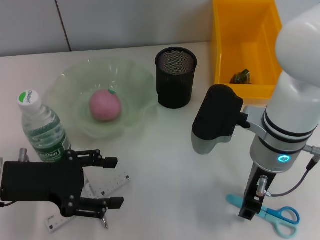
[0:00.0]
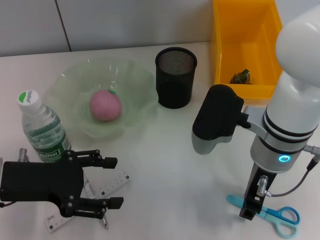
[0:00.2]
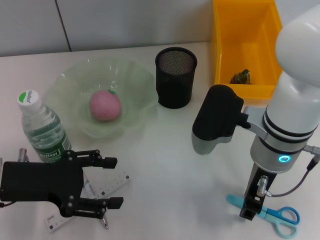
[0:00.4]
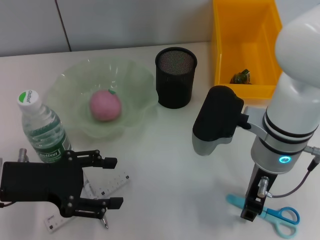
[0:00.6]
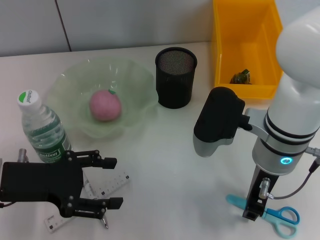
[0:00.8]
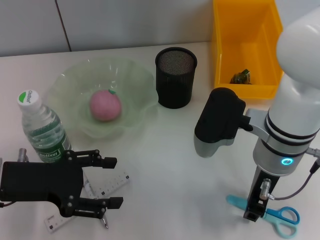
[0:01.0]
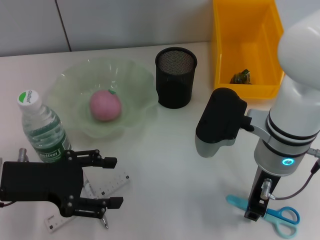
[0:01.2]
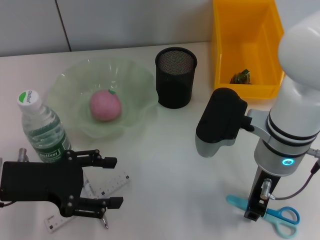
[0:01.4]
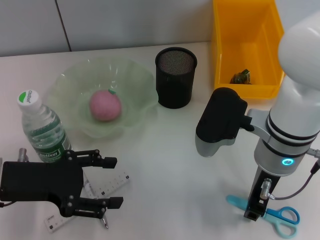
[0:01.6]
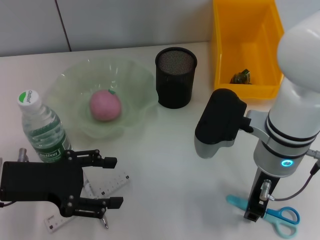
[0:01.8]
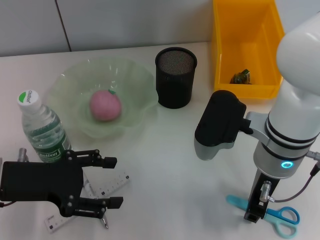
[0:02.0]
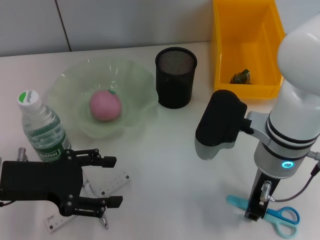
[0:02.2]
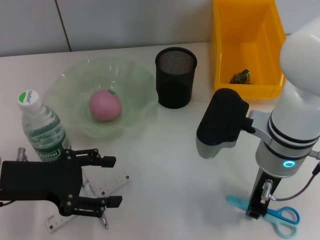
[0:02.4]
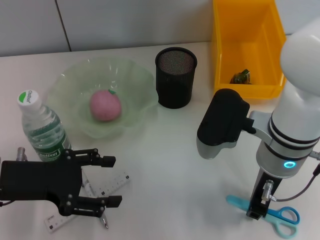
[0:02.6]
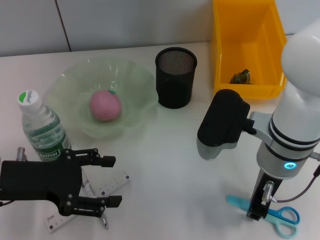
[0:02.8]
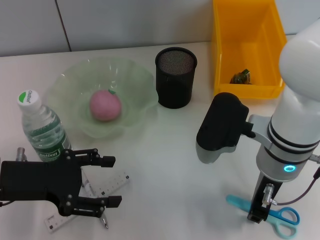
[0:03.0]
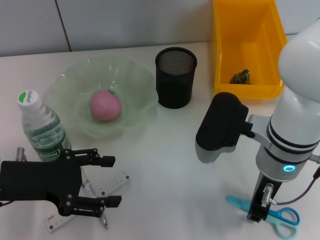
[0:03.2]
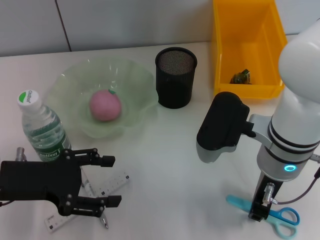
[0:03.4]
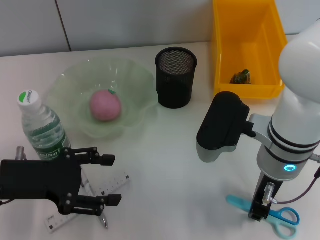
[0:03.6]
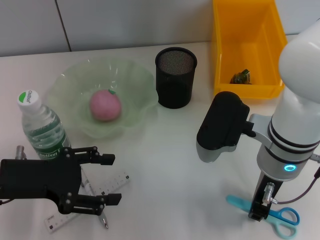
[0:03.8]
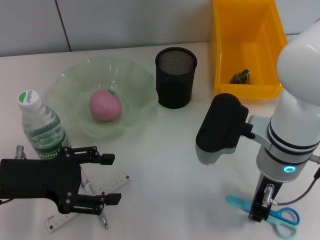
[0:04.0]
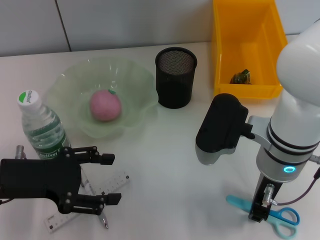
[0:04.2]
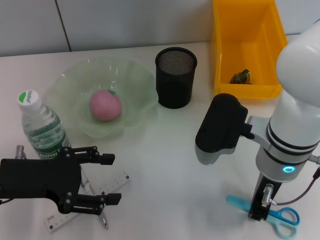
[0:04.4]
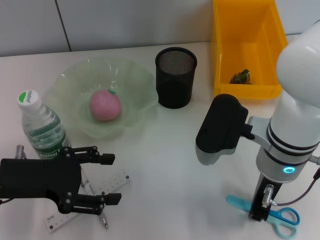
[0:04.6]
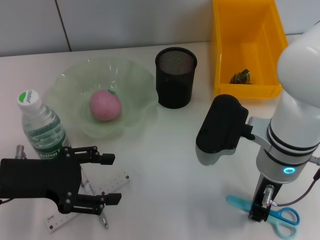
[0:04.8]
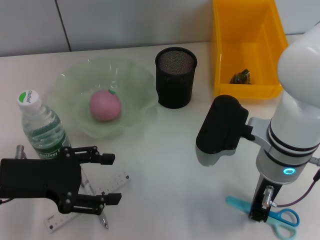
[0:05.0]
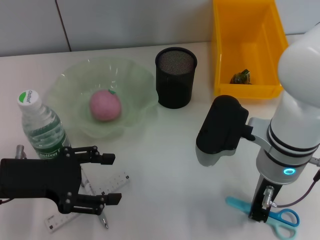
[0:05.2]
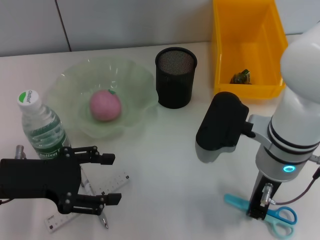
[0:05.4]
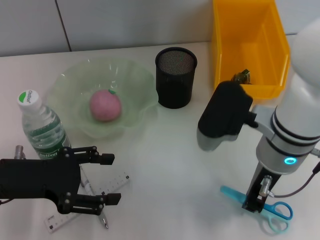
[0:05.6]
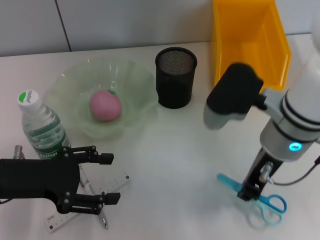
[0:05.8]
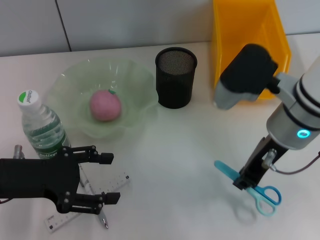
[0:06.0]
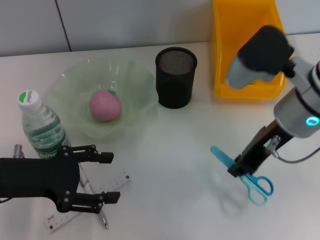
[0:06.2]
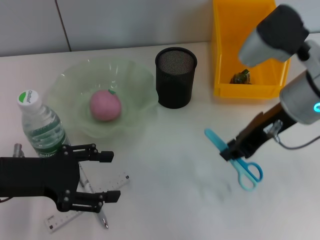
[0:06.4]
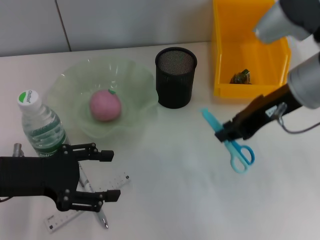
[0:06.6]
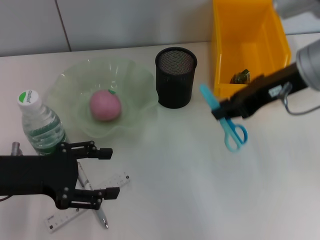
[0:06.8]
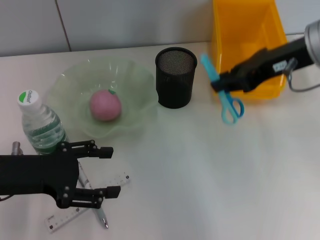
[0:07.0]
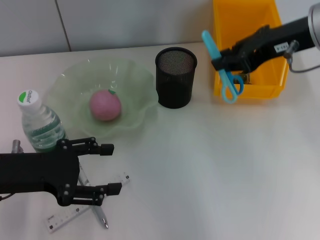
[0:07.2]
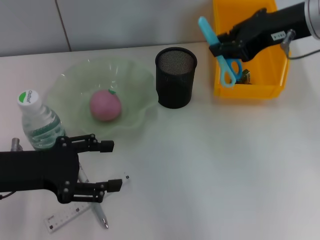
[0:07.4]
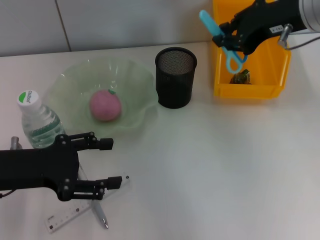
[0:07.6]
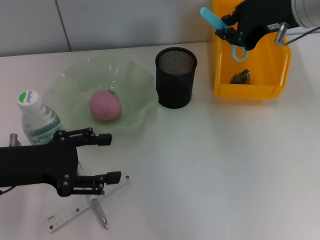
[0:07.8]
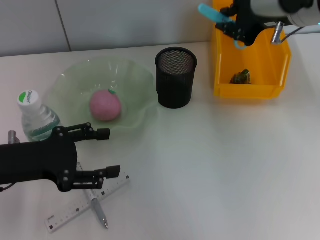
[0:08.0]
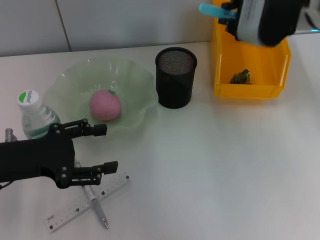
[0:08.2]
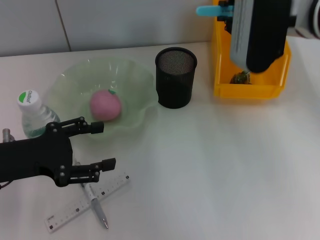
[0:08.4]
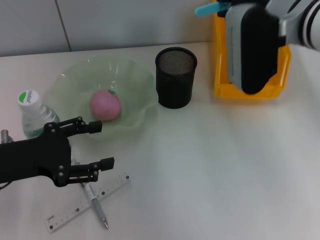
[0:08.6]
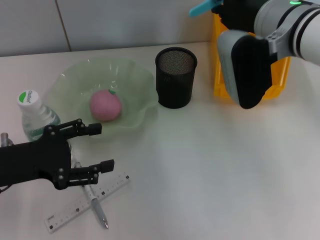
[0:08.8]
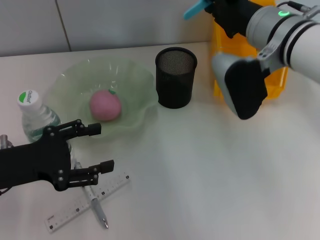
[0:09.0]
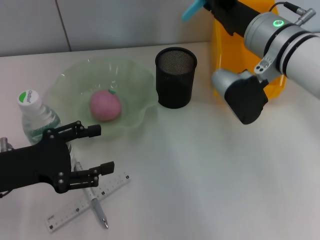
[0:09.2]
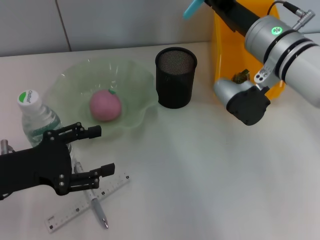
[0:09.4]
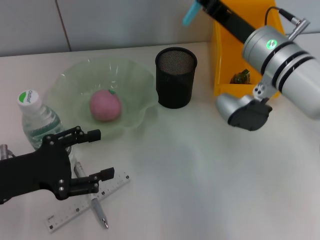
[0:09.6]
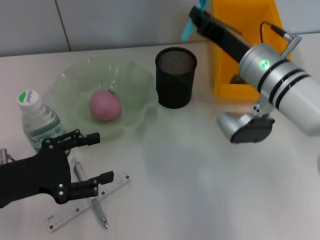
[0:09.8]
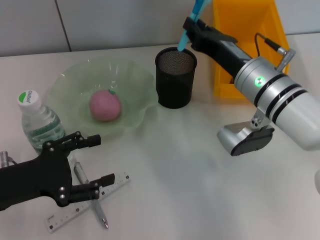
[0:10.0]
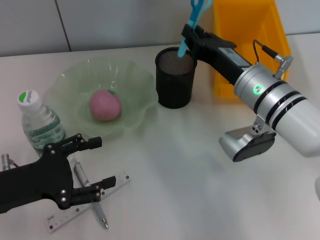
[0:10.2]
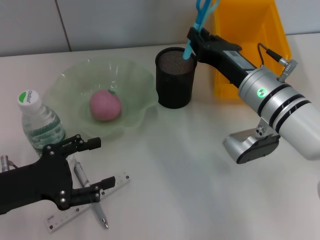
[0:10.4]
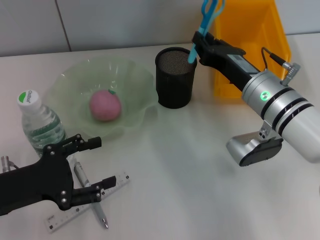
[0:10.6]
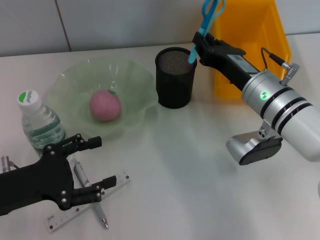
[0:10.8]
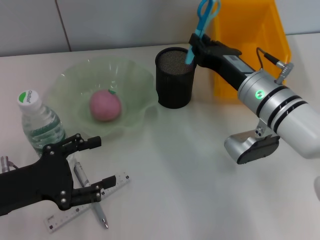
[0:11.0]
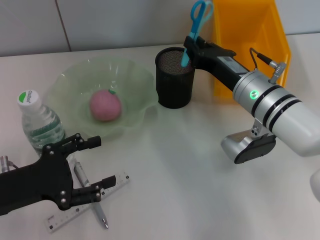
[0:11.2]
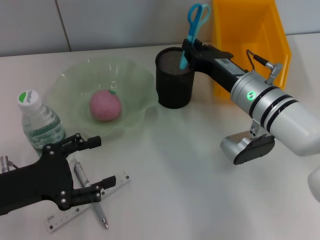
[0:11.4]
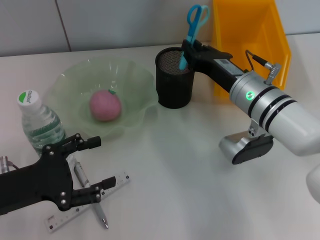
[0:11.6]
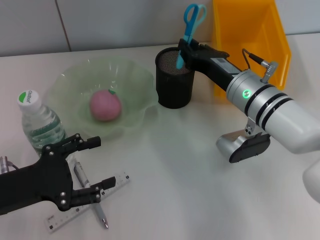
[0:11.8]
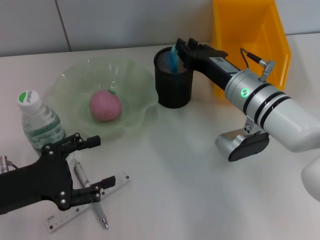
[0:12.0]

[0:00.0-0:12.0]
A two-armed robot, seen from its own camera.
Step, 0:00.0 to 0:05.2: Grab the blue scissors with the right hand.
0:00.0 to 0:04.4: The two grippers keep their place.
0:04.4 to 0:06.0: The right gripper shifts by approximately 5 cm.
0:06.0 to 0:07.6: The right gripper goes about 10 cm upward and forward.
0:07.6 to 0:09.0: The right gripper travels downward and to the left by some 10 cm.
0:09.0 to 0:10.4: The right gripper goes some 10 cm downward.
0:10.4 to 0:12.0: There are only small adjustments of the grippers.

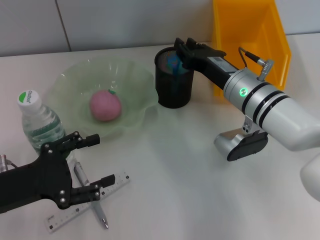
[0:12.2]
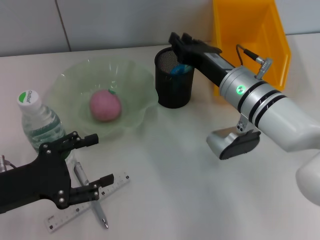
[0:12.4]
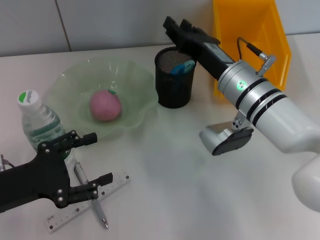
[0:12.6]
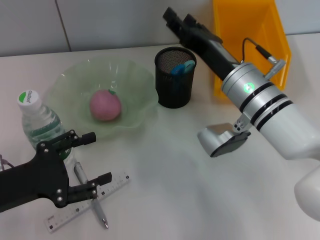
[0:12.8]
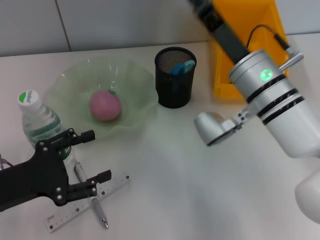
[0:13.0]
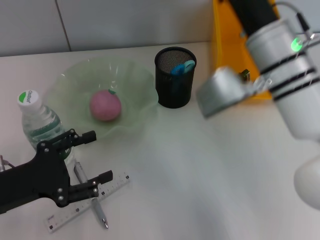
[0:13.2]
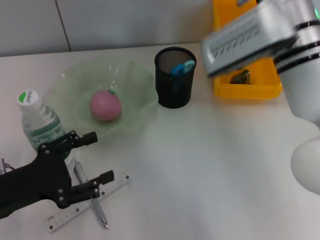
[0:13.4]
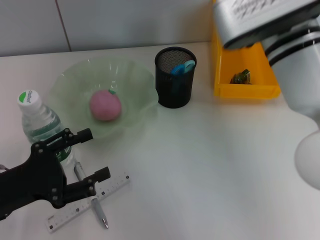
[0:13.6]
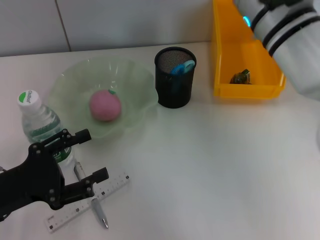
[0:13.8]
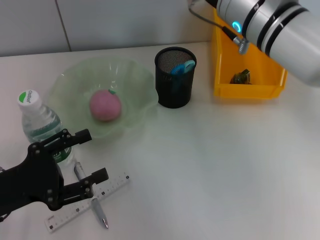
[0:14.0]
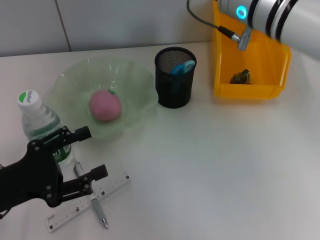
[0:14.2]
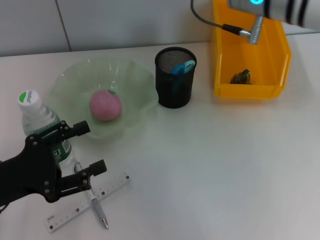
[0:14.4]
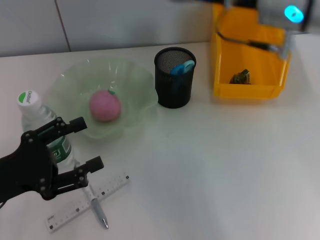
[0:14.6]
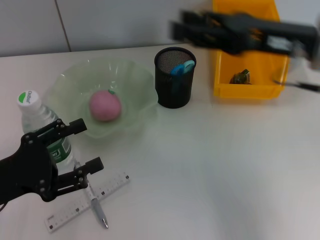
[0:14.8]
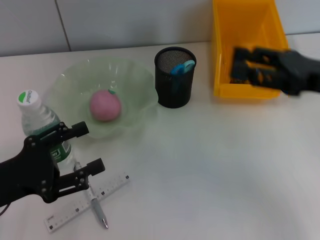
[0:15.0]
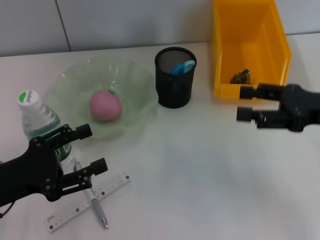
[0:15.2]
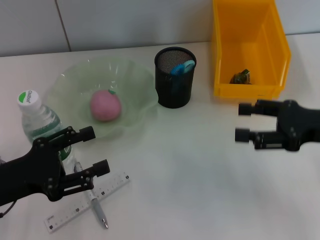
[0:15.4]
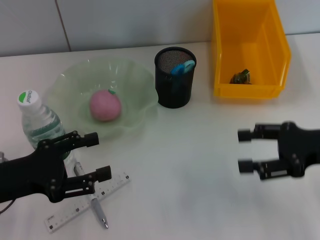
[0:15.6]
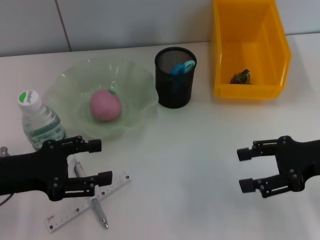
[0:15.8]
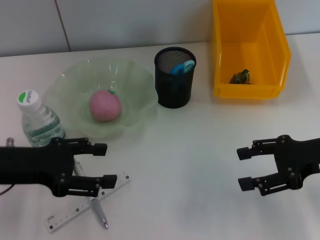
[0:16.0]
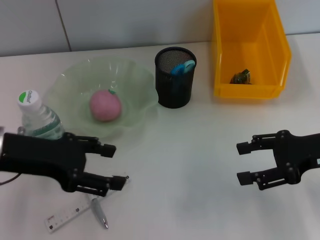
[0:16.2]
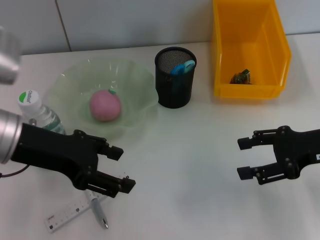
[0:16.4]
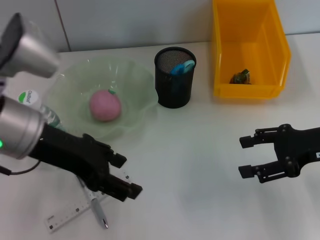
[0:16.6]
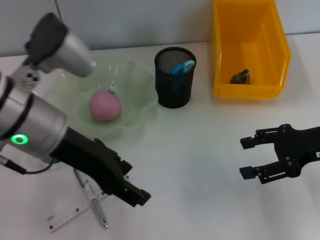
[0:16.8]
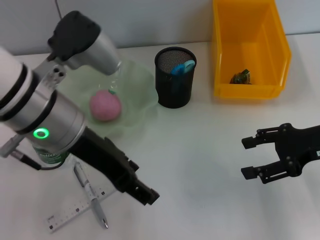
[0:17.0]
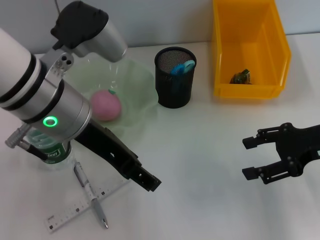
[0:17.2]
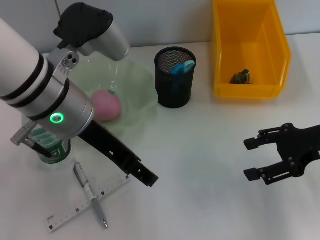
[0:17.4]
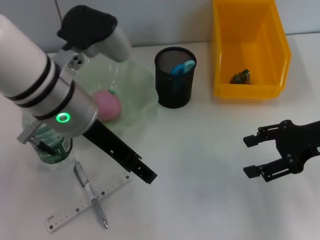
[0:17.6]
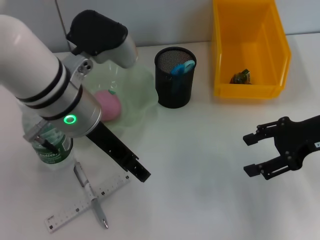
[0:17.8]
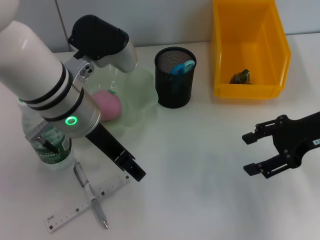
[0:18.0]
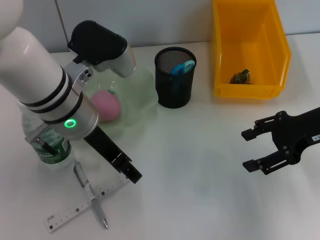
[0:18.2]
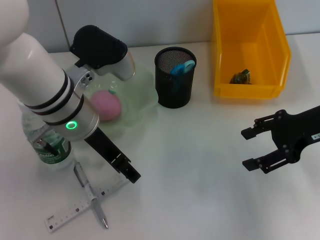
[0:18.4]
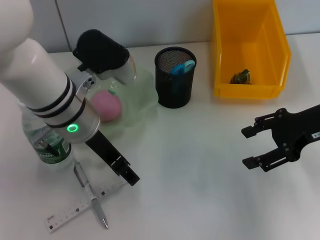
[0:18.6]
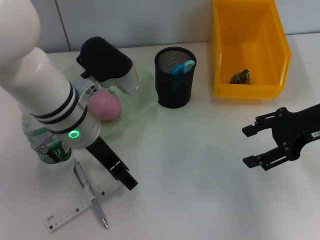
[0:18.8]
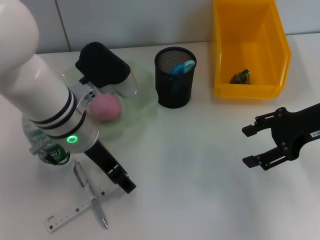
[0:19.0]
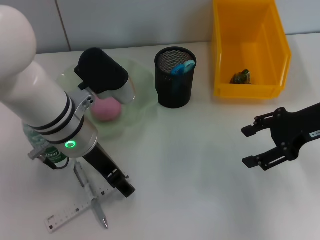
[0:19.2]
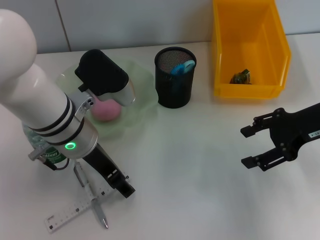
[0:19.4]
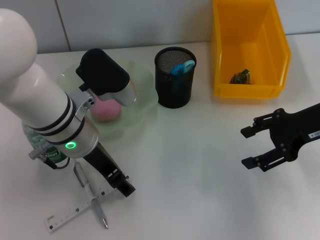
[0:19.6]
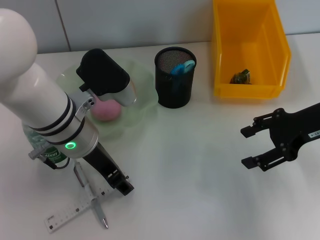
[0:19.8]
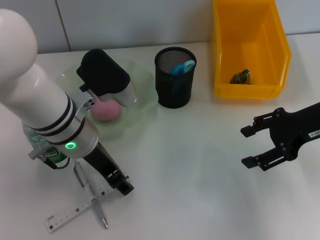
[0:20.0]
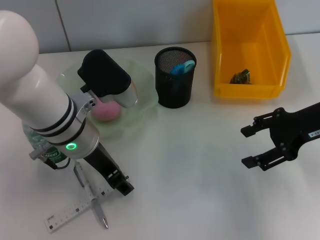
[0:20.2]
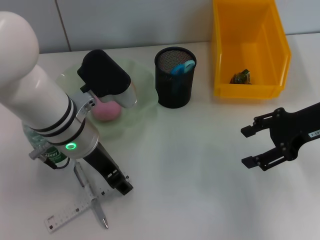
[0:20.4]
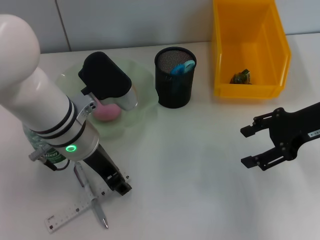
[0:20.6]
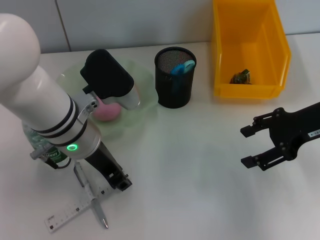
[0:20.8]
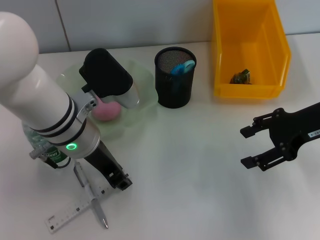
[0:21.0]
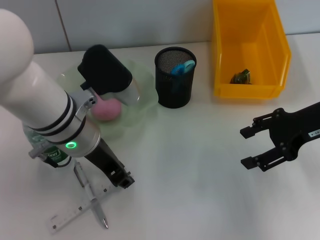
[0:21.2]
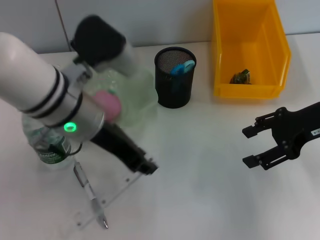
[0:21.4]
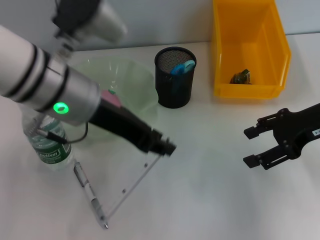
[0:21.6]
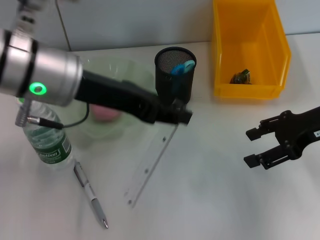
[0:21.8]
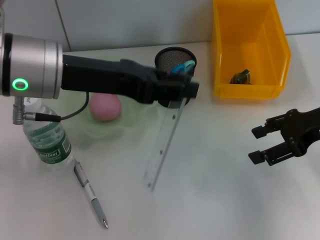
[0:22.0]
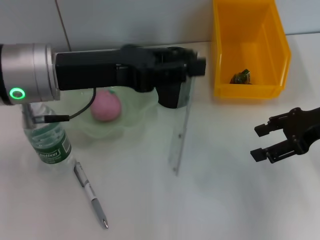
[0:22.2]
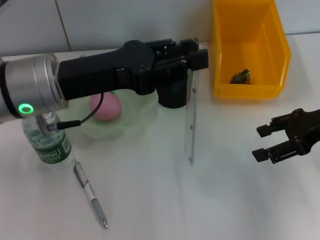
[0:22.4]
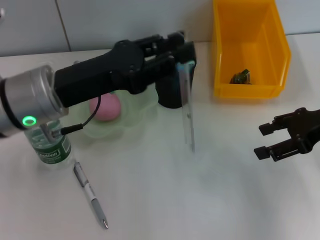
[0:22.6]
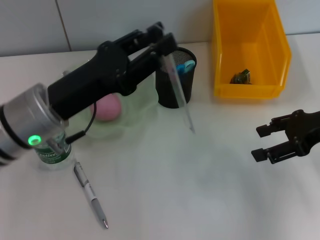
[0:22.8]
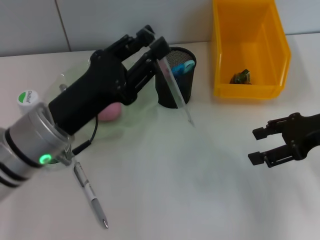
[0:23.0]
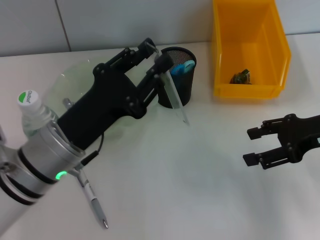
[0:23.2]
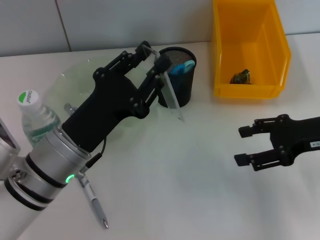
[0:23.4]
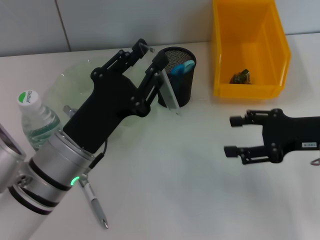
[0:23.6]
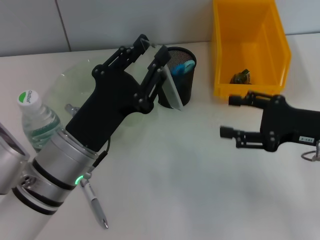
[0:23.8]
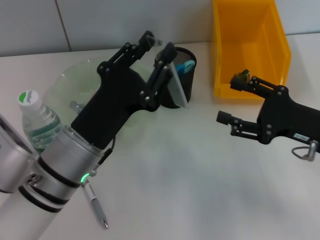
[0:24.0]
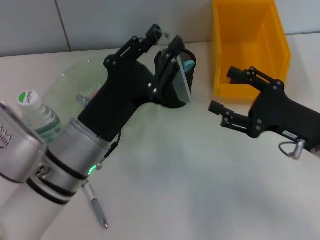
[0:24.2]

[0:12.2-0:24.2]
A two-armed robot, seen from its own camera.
Step, 0:12.6 to 0:20.8: Grab the ruler with the left hand.
0:12.2 to 0:13.8: The right gripper heads upward, covering about 15 cm, and opens its fingers.
0:13.8 to 0:15.2: The right gripper shifts approximately 20 cm to the right and downward.
0:15.2 to 0:16.6: The left gripper shifts roughly 15 cm upward, to the right and forward.
0:16.6 to 0:18.2: The left gripper heads to the right, covering approximately 5 cm.
0:18.2 to 0:19.8: The grippers make only small movements.
0:19.8 to 0:21.2: The left gripper closes its fingers.
0:21.2 to 0:22.6: The left gripper travels to the left by roughly 5 cm, and reaches approximately 10 cm upward, then returns.
0:22.6 to 0:24.2: The left gripper is displaced downward and backward by about 10 cm; the right gripper moves downward and to the left, roughly 10 cm.
